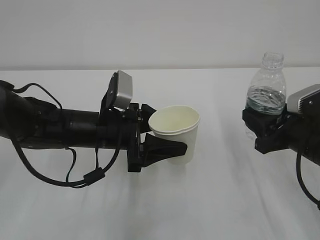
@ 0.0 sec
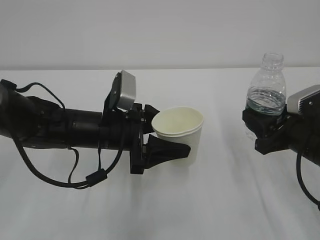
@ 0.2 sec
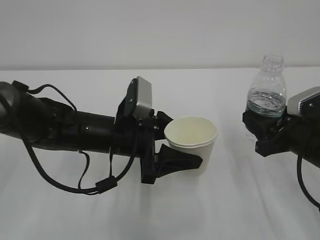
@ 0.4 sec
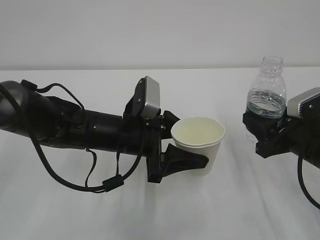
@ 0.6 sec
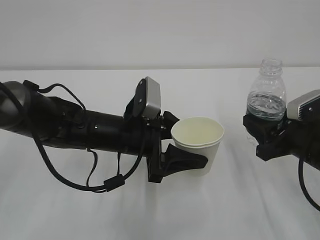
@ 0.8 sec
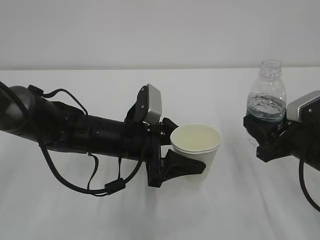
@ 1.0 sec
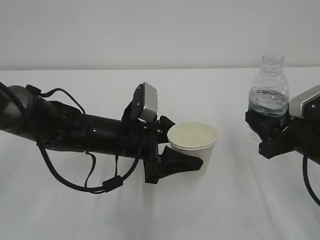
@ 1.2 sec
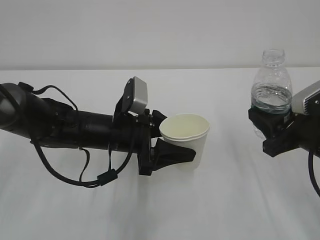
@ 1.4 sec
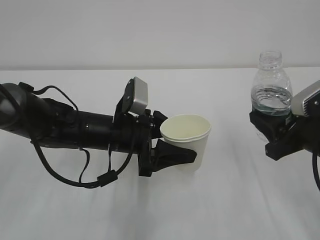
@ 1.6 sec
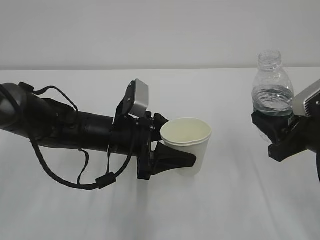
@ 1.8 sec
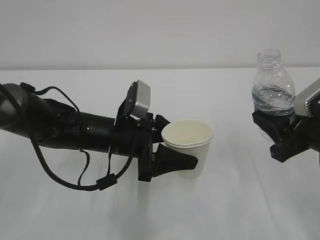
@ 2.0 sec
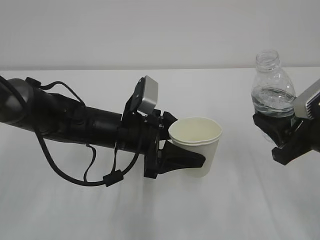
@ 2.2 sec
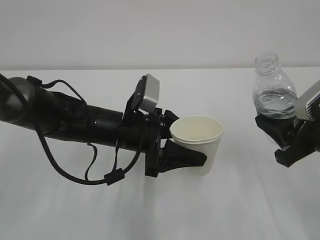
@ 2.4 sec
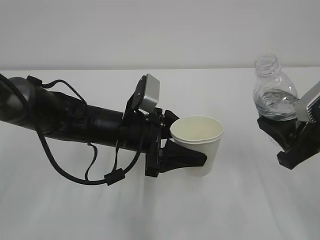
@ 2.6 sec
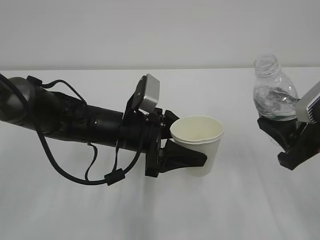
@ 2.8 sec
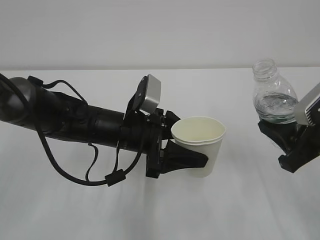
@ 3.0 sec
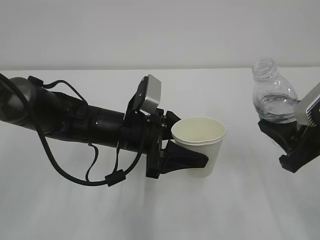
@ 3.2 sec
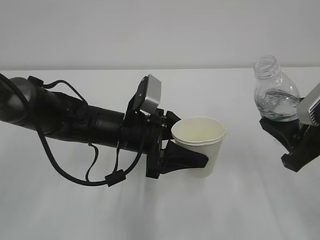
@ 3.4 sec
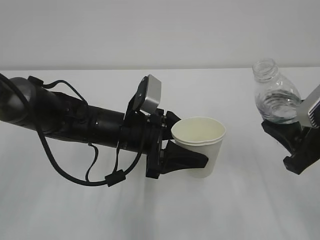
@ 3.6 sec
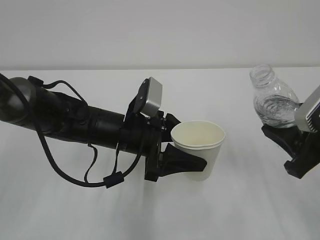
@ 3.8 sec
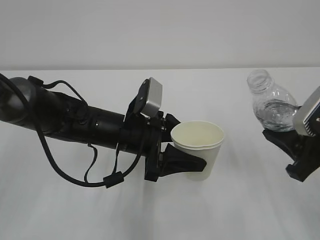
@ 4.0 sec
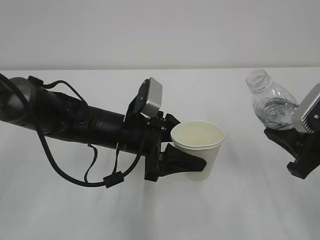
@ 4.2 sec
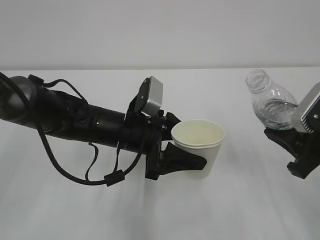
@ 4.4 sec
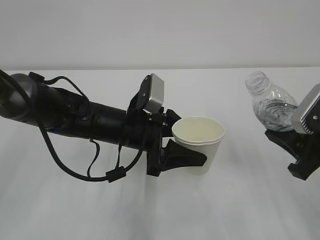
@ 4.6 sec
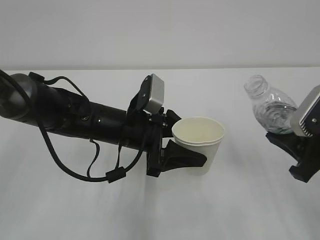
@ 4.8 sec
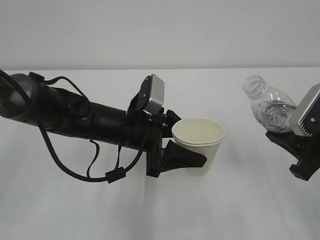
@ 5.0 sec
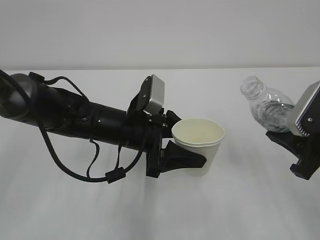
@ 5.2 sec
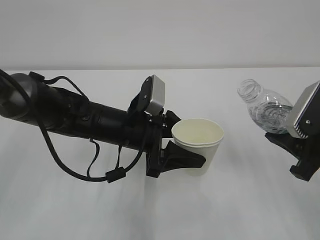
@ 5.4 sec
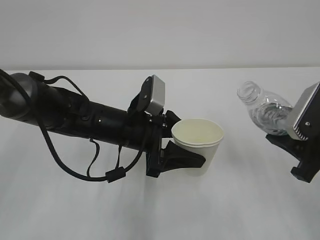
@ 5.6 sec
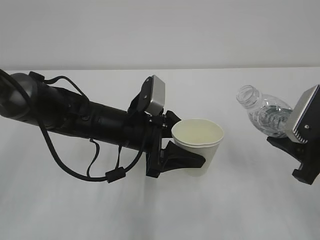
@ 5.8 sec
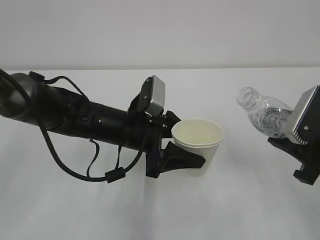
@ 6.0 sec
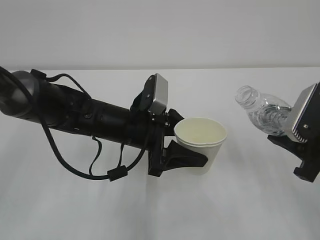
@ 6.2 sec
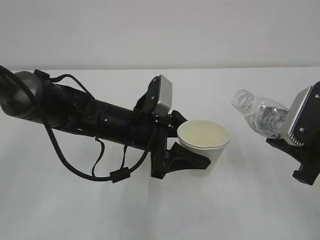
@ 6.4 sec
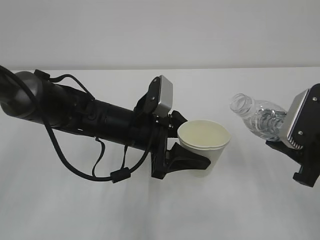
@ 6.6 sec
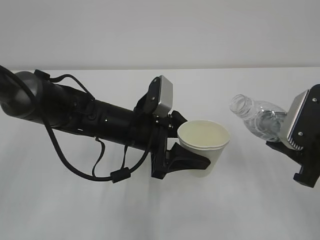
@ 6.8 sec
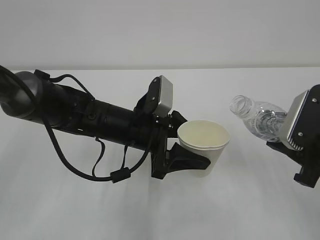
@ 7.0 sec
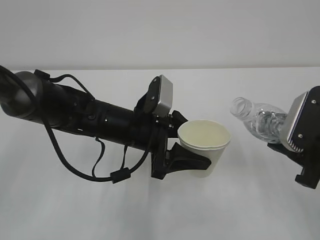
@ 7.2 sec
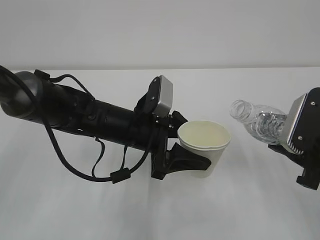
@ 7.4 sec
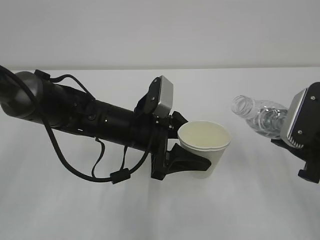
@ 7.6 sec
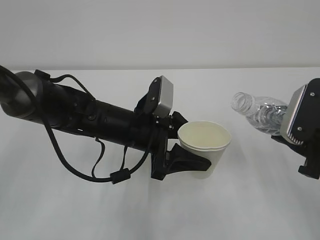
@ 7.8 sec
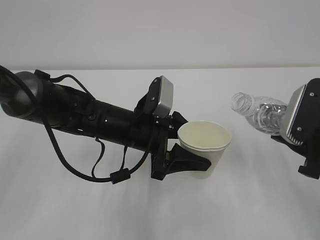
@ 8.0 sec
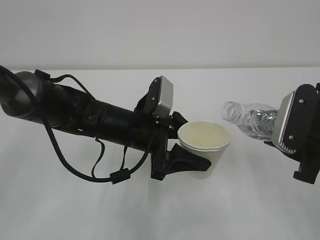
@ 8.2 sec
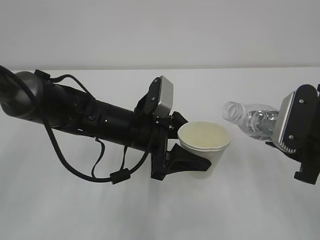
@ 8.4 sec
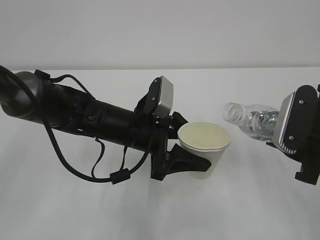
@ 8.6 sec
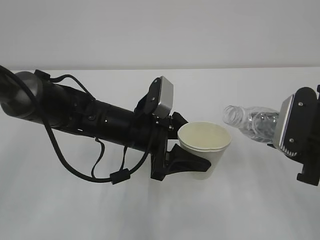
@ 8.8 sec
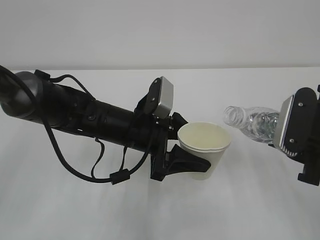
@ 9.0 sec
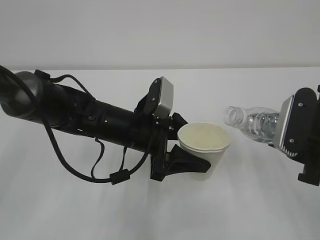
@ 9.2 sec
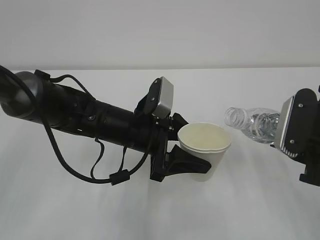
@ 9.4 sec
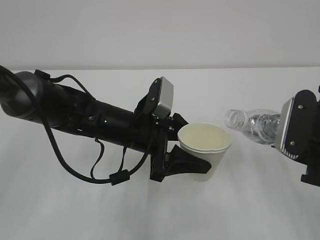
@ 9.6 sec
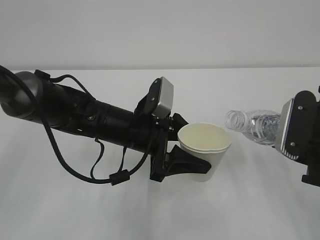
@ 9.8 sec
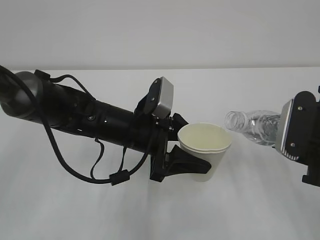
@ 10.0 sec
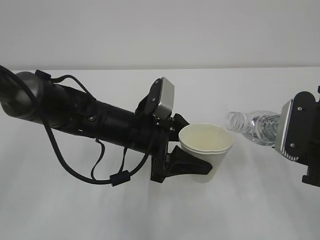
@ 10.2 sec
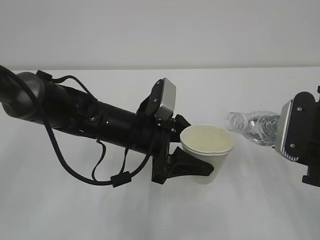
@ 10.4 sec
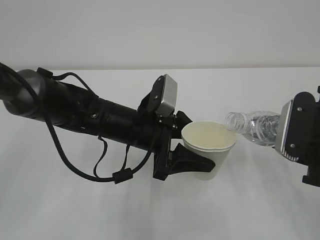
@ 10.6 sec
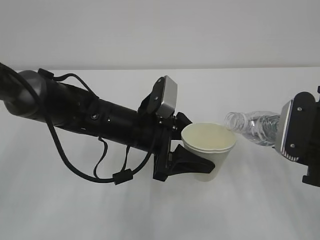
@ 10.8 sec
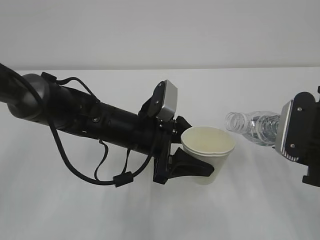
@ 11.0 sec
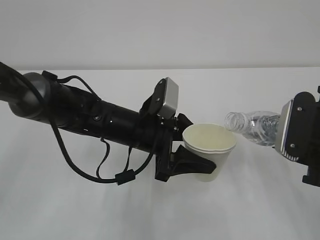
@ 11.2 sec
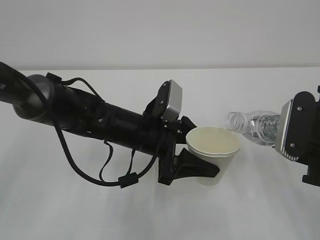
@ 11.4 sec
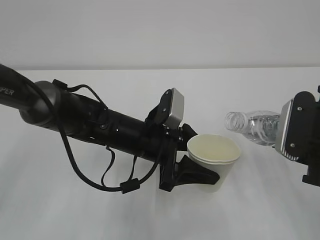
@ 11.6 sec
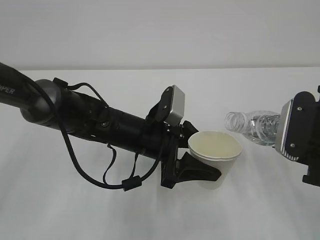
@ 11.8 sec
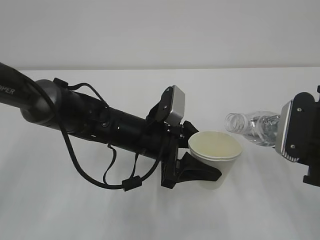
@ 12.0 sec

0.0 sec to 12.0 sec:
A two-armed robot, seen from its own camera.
0.0 sec to 1.6 sec: There are only small adjustments of the grippers.
1.6 sec to 3.0 sec: There are only small adjustments of the grippers.
3.0 sec to 4.4 sec: The grippers move only a little.
4.4 sec to 6.0 sec: There are only small adjustments of the grippers.
6.0 sec to 9.0 sec: The grippers stay close to where they were, moving slightly.
9.0 sec to 10.4 sec: The two grippers keep their place.
10.4 sec to 12.0 sec: There are only small adjustments of the grippers.

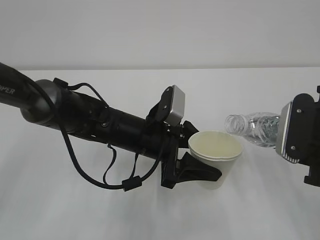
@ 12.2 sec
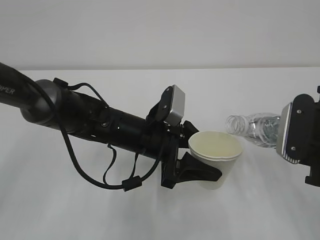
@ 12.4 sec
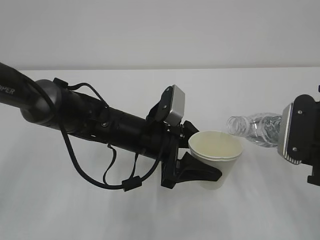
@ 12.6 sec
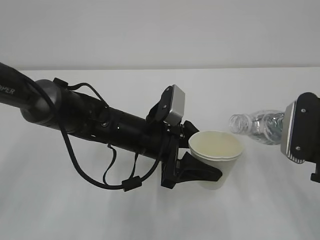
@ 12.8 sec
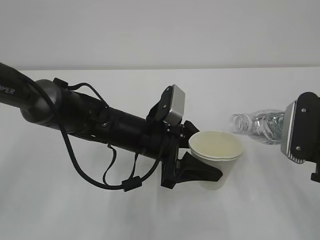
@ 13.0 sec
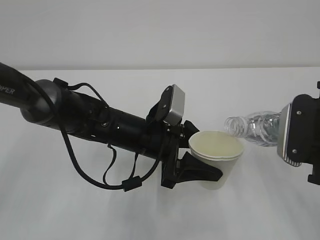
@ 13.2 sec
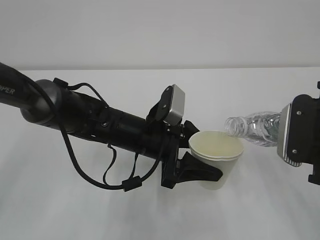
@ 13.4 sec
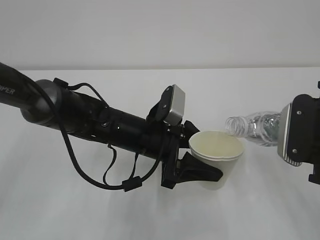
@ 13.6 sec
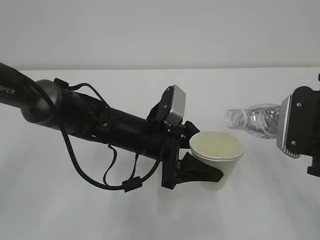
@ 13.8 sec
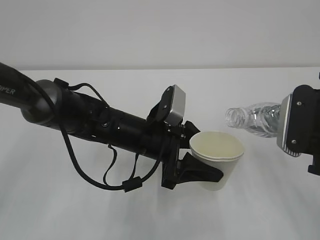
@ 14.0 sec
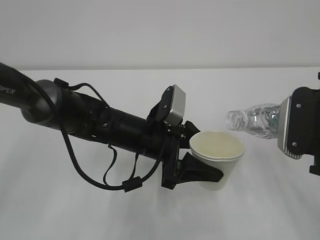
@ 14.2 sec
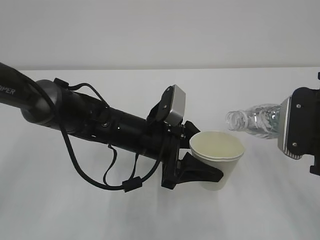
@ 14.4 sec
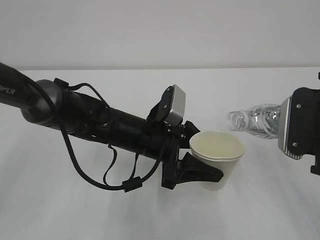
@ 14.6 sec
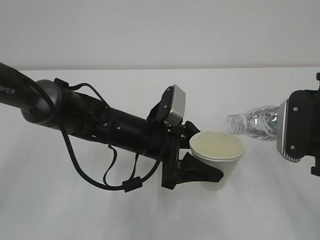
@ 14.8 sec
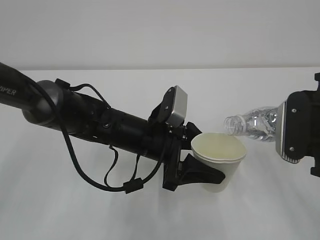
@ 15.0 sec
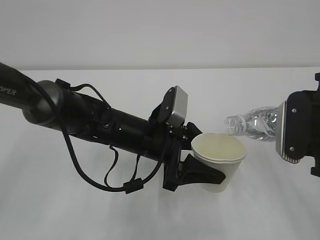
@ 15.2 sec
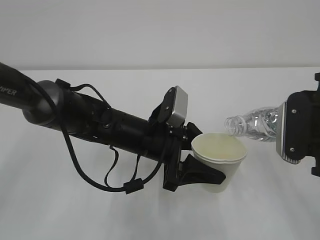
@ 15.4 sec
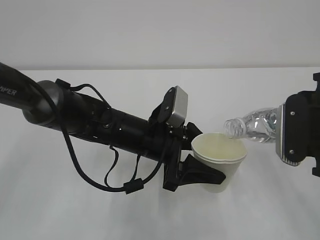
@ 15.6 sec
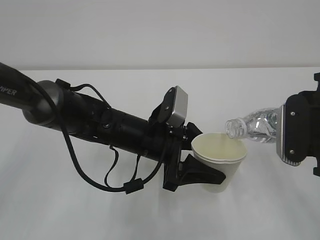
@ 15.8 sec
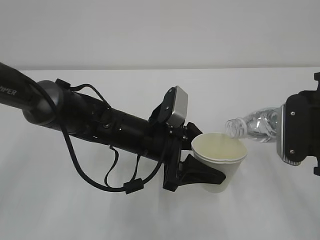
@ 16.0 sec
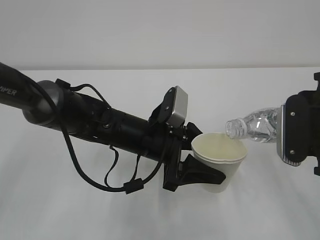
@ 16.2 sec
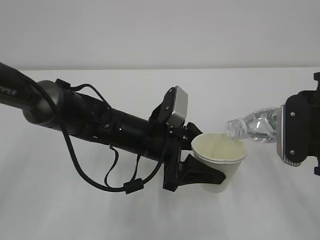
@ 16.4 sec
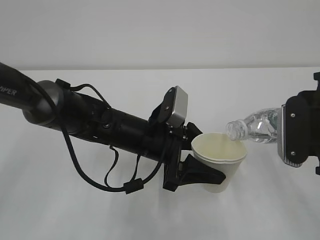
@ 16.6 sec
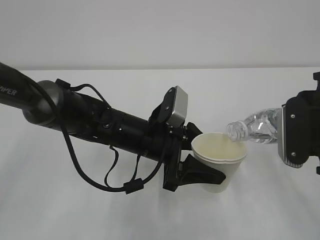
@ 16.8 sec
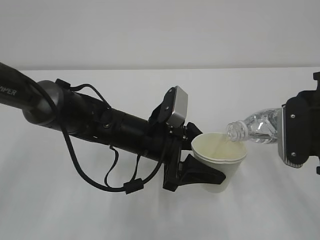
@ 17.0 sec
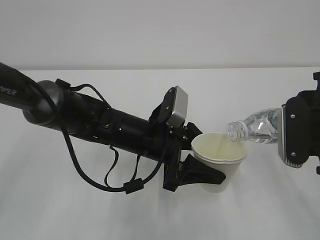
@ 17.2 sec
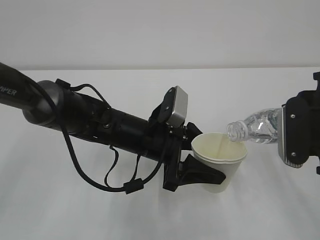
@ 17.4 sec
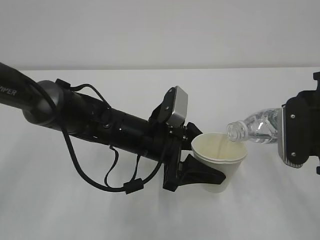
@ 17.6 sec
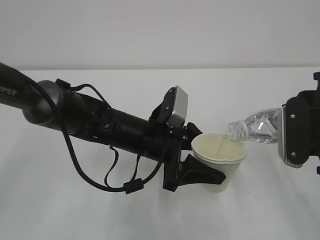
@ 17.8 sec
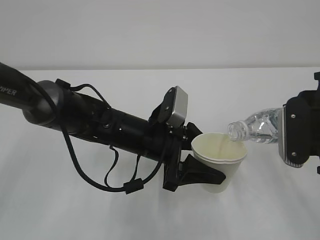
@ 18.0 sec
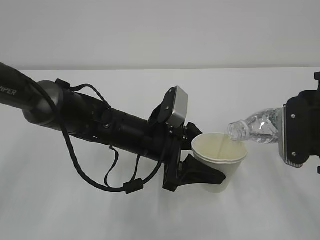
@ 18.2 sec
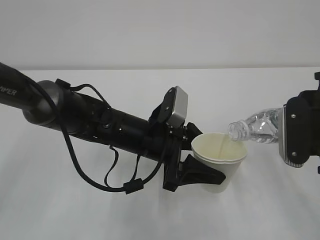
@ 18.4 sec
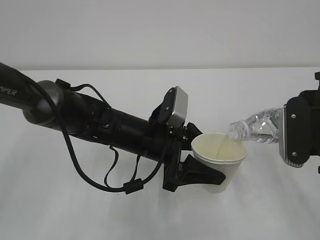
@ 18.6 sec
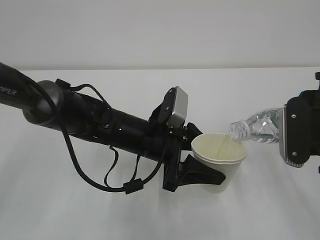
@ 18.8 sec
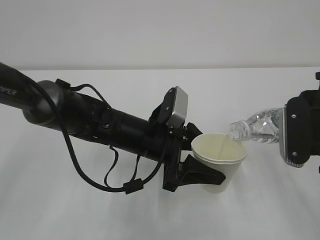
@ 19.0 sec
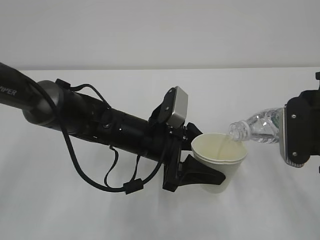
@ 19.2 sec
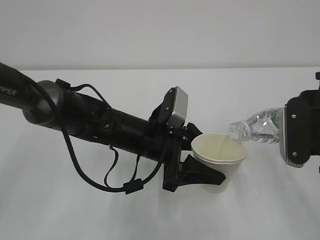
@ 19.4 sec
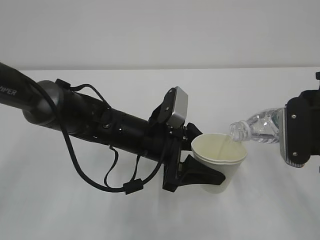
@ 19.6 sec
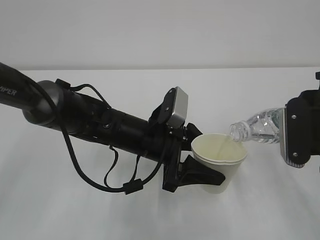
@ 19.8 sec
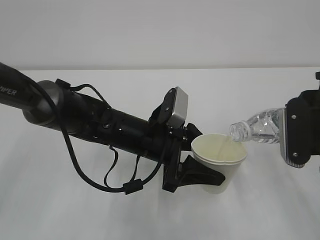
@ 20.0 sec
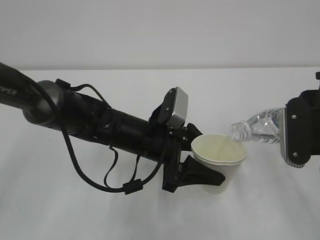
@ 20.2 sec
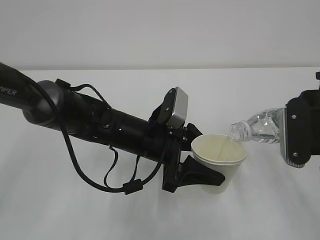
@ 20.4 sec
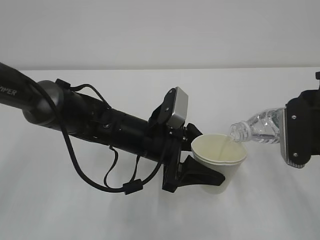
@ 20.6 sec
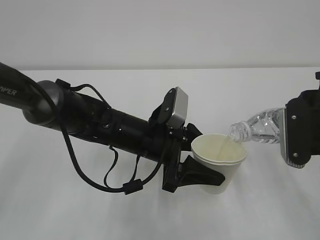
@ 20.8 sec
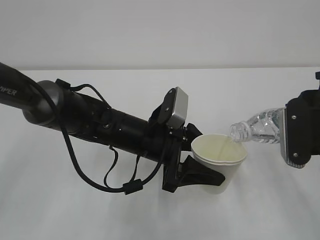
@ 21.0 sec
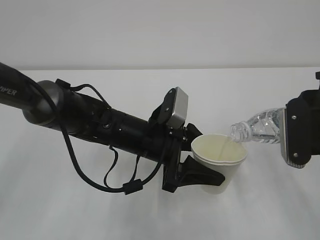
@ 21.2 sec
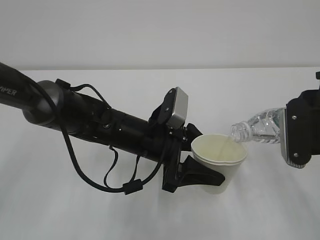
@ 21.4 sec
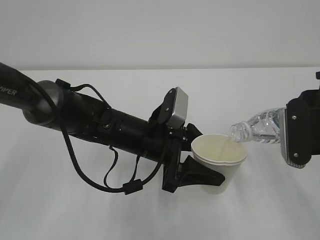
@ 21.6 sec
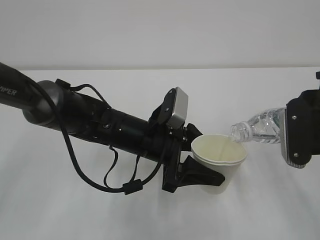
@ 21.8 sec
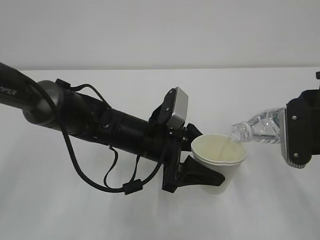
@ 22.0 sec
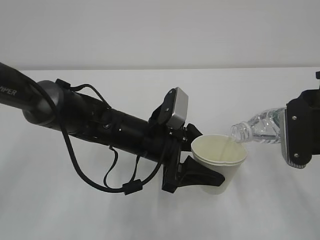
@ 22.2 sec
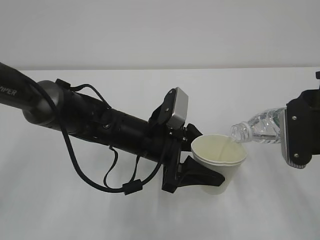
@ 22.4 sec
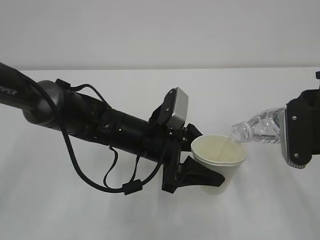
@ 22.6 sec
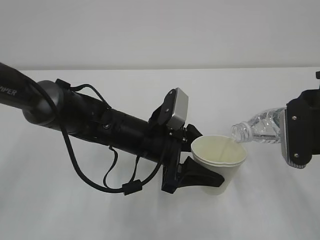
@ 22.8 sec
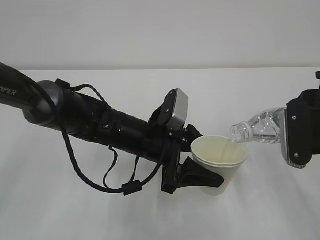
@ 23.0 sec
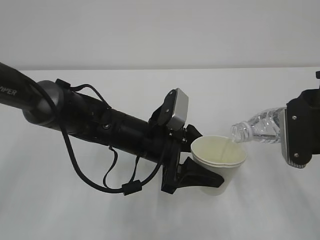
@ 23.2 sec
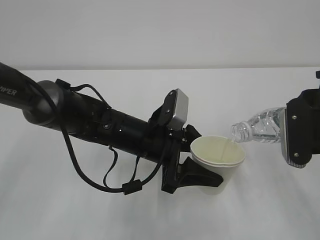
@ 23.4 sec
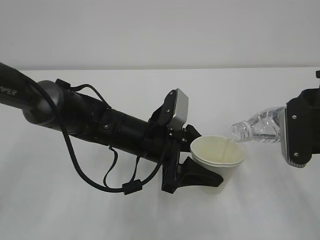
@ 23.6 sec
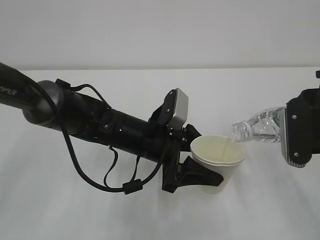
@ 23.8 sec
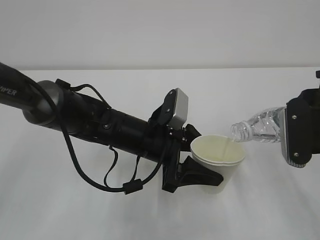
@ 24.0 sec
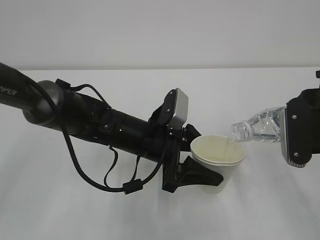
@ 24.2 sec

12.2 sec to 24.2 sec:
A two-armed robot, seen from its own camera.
12.2 sec to 15.2 sec: The grippers stay close to where they were, moving slightly.
15.2 sec to 16.6 sec: Neither gripper changes place.
16.6 sec to 24.2 sec: Both grippers stay about where they are.
